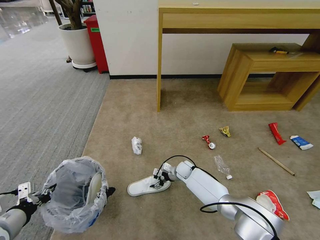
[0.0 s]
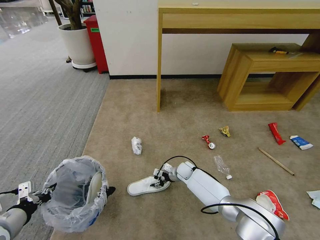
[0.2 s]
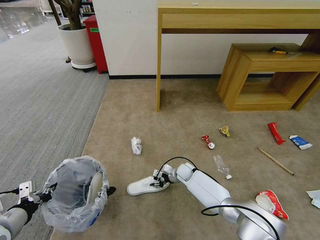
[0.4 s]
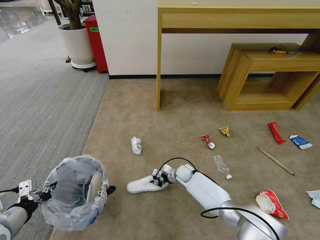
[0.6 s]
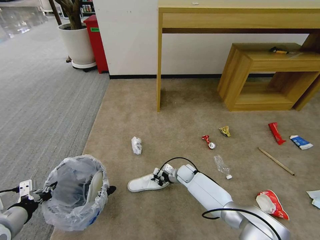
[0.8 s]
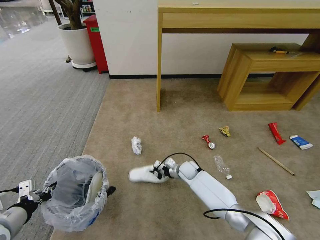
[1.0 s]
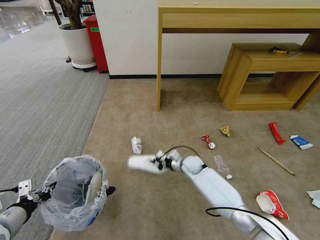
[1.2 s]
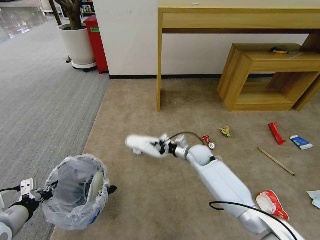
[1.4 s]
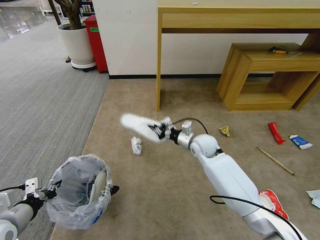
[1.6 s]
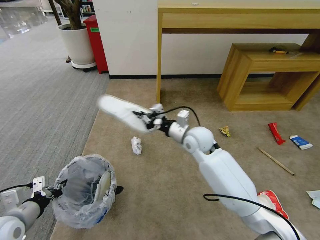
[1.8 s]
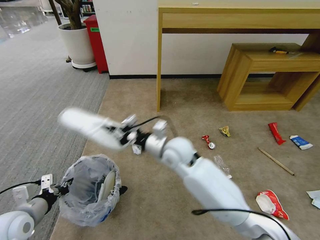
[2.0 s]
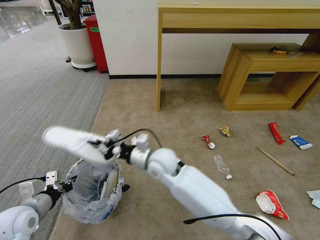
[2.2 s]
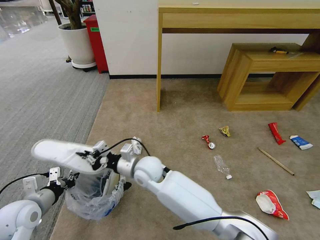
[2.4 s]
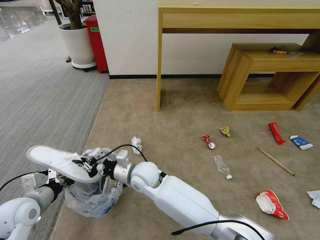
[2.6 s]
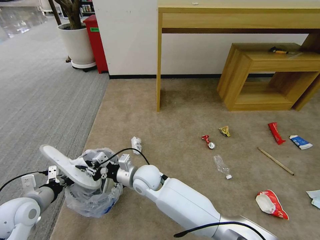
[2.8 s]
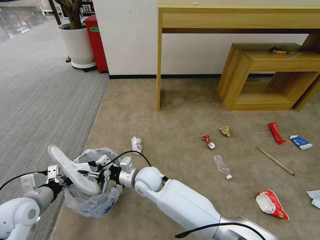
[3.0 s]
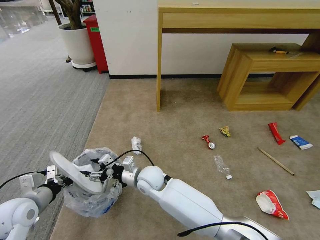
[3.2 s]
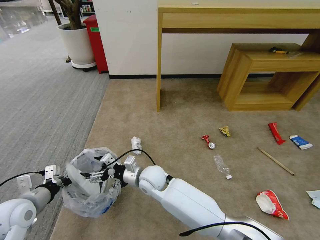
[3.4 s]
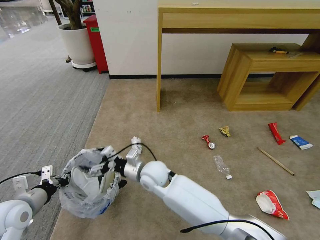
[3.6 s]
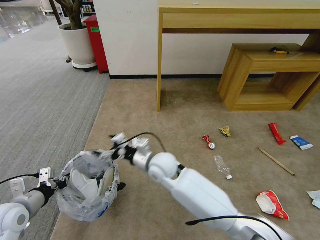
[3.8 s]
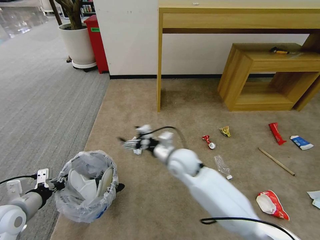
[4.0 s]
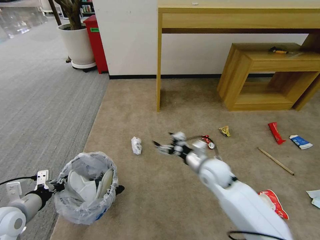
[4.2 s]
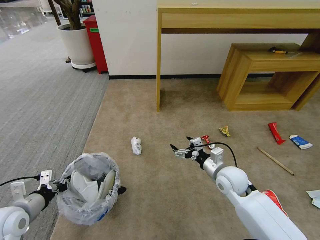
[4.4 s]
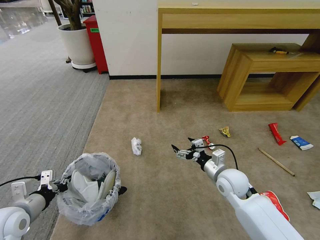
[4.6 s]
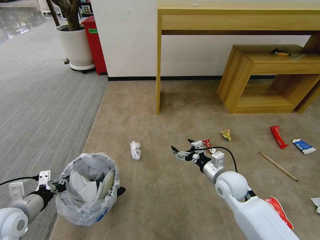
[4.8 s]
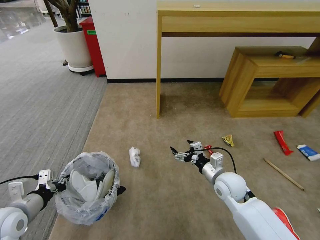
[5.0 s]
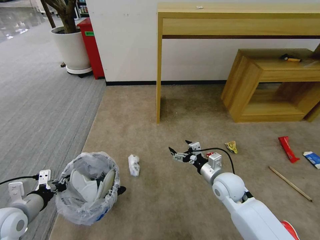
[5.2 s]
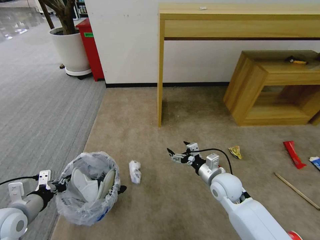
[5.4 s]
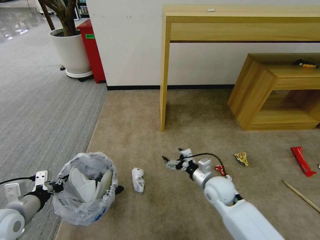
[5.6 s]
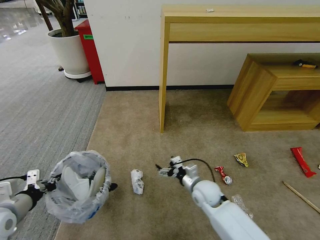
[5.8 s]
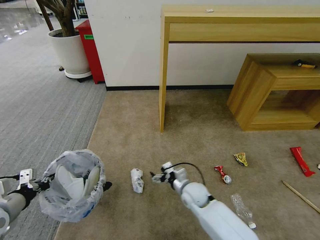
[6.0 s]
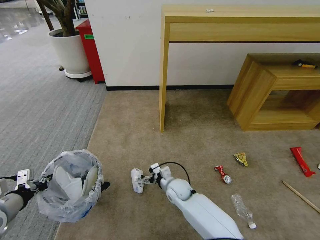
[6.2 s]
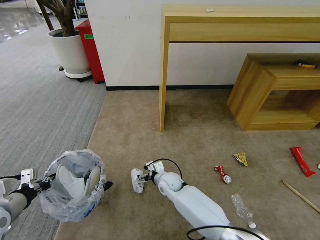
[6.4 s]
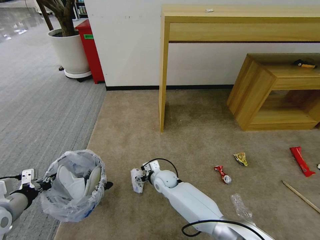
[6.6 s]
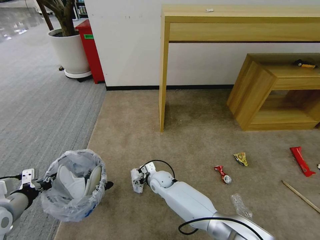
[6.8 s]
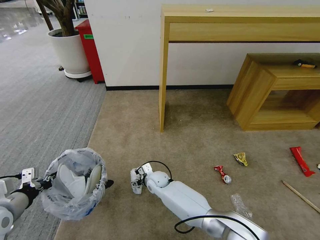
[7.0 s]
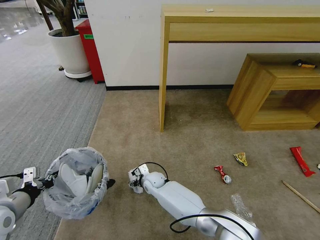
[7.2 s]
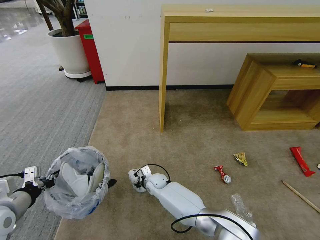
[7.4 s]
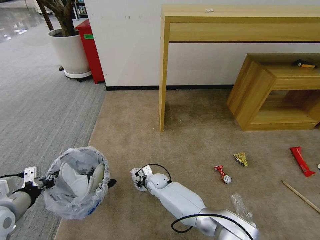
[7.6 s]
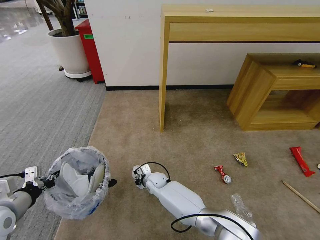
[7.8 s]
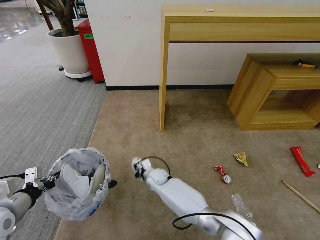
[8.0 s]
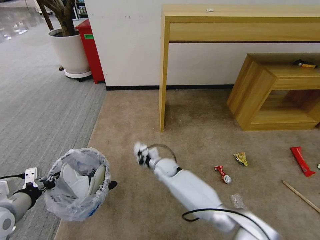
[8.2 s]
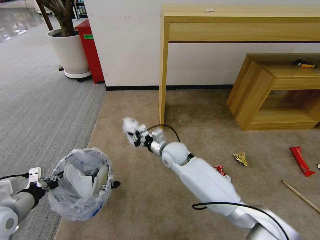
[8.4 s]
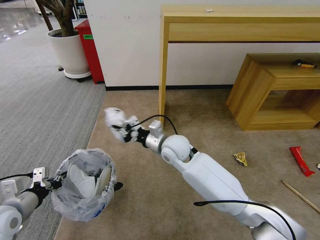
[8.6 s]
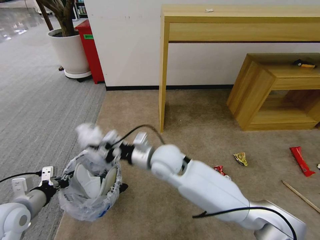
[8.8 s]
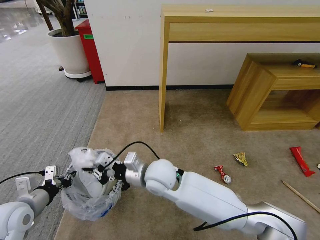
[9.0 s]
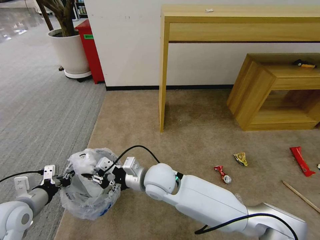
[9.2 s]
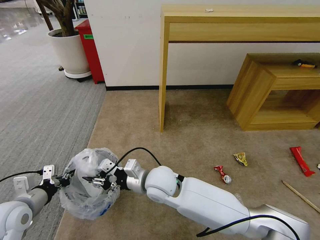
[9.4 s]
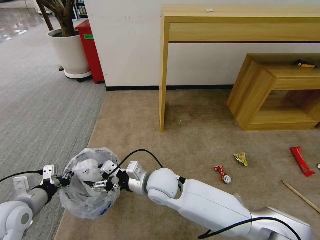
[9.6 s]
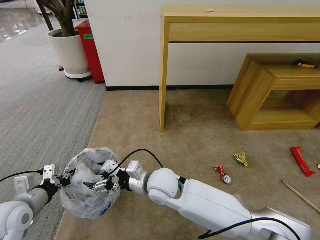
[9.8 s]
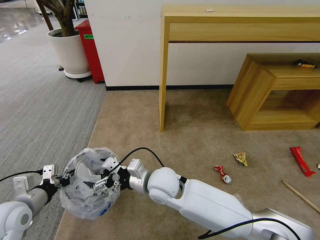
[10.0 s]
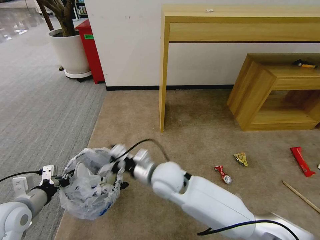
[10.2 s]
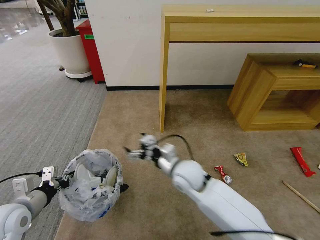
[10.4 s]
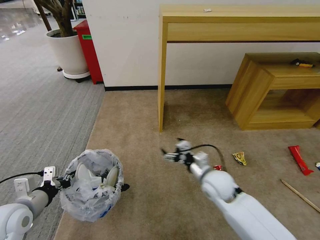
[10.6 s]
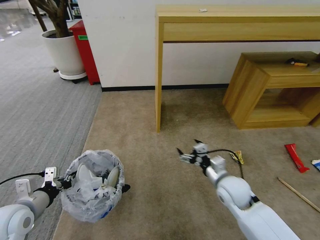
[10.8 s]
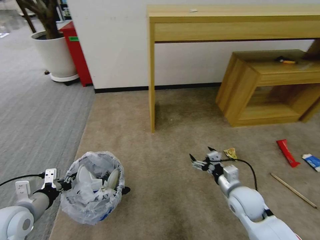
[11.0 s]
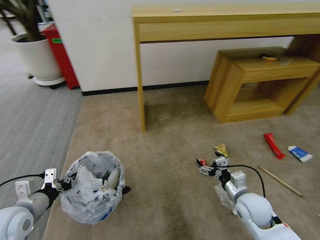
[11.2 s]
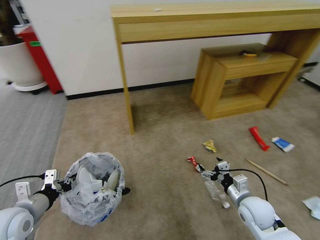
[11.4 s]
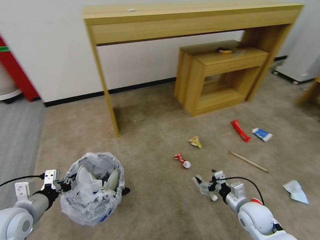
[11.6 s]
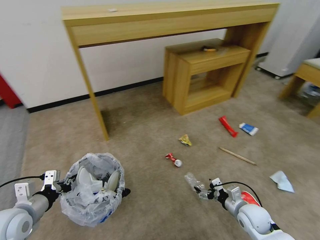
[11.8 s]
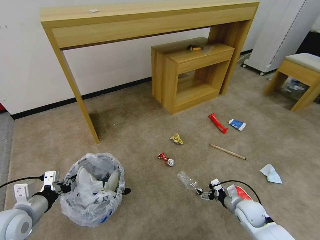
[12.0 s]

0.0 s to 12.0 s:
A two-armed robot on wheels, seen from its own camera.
Task of the whole recording: Pick up the trash bin and place the garbage on the floor into it.
0.0 to 1.6 s: The right gripper heads upward, covering about 20 cm, and closes up.
1.6 to 3.0 s: The left gripper is displaced forward by about 5 cm; the right gripper shifts approximately 25 cm to the left and backward, and opens up.
3.0 to 4.4 s: The right gripper shifts about 30 cm to the right, and opens.
4.4 to 6.0 s: The right gripper is displaced to the left and downward by approximately 15 cm.
6.0 to 7.6 s: The right gripper is displaced to the left, forward and downward by roughly 15 cm, and closes up.
7.6 to 9.0 s: The right gripper is displaced upward by roughly 25 cm.
9.0 to 10.4 s: The right gripper moves to the right, some 5 cm, and opens its fingers.
10.4 to 12.0 s: The right gripper is displaced to the right and downward by roughly 35 cm.

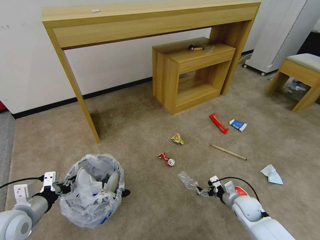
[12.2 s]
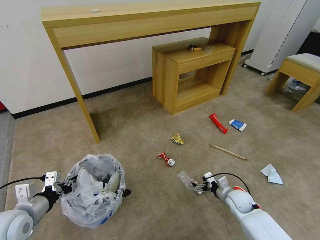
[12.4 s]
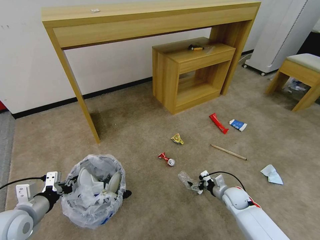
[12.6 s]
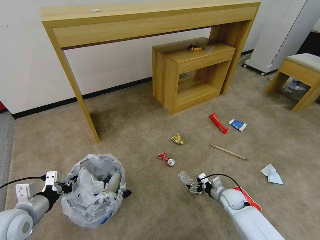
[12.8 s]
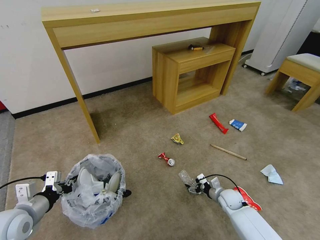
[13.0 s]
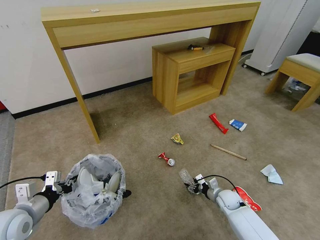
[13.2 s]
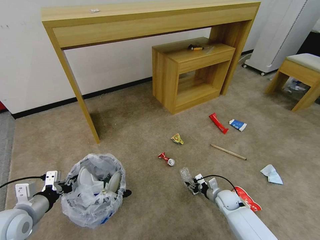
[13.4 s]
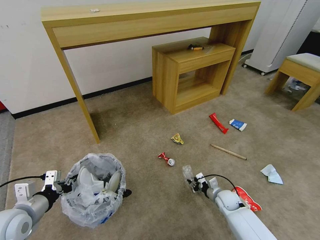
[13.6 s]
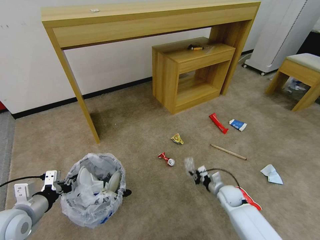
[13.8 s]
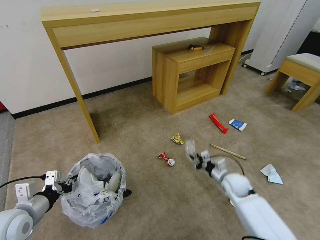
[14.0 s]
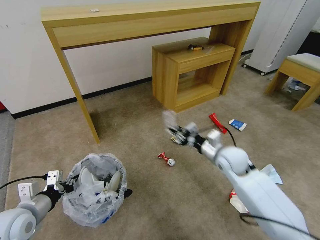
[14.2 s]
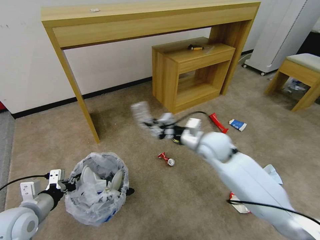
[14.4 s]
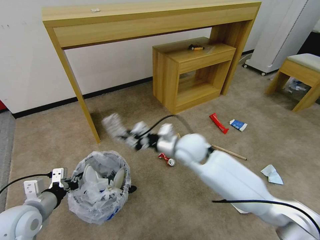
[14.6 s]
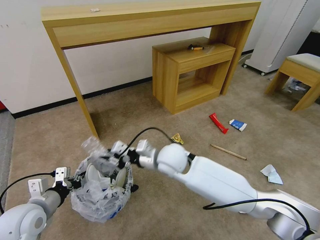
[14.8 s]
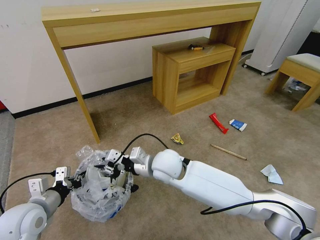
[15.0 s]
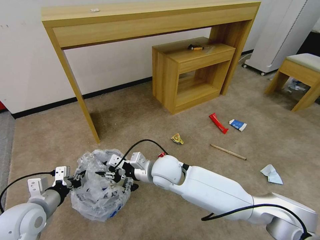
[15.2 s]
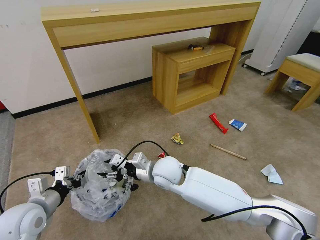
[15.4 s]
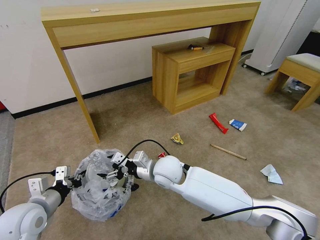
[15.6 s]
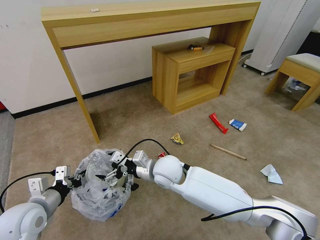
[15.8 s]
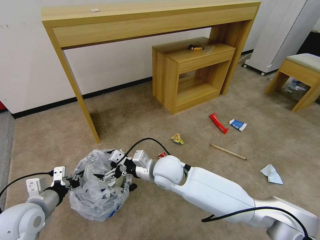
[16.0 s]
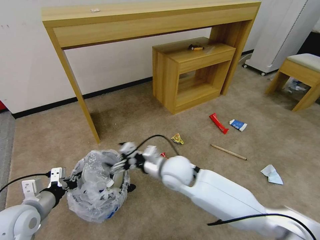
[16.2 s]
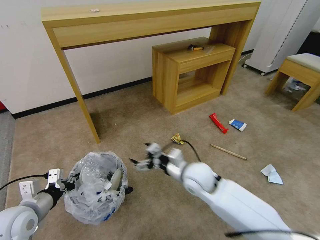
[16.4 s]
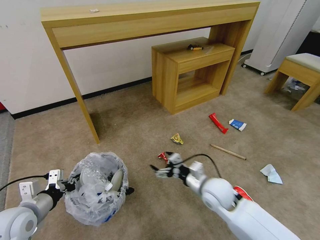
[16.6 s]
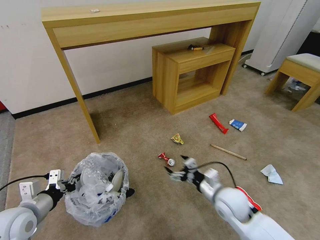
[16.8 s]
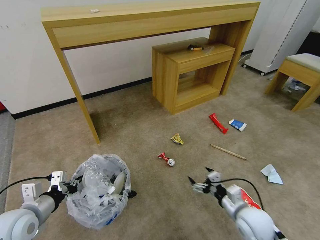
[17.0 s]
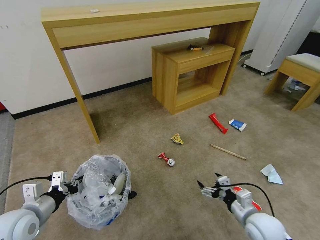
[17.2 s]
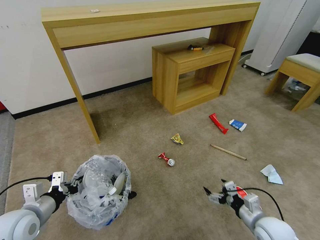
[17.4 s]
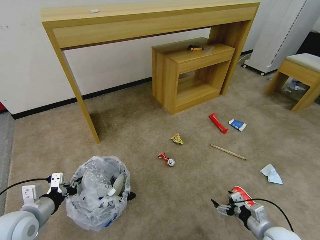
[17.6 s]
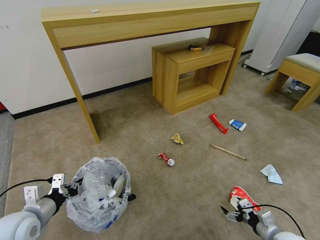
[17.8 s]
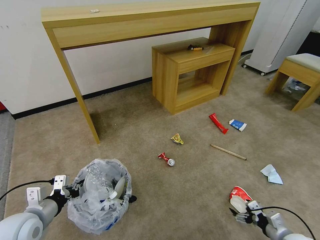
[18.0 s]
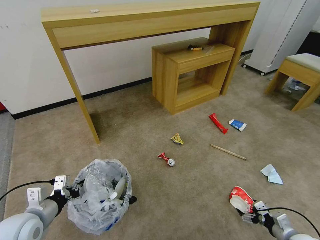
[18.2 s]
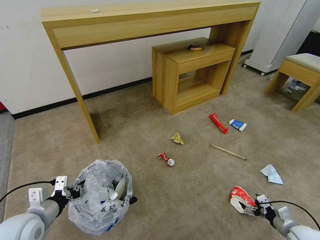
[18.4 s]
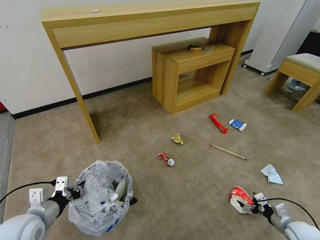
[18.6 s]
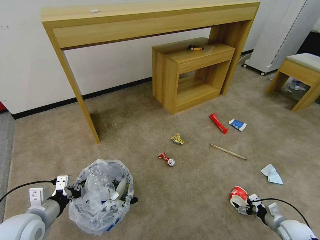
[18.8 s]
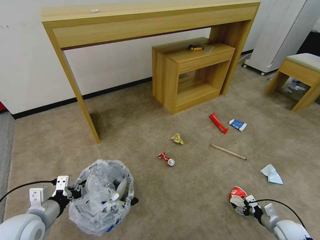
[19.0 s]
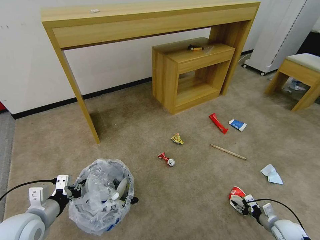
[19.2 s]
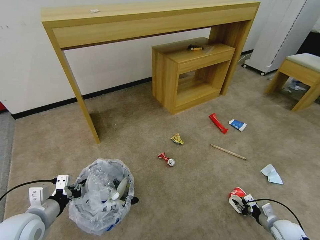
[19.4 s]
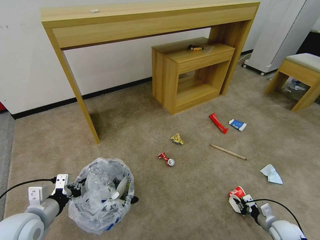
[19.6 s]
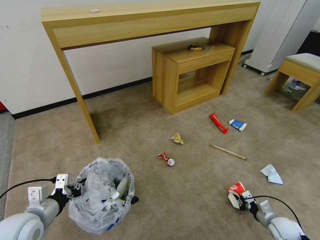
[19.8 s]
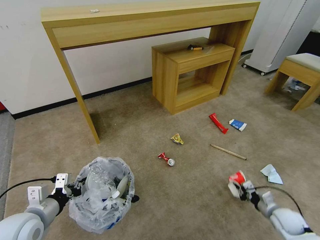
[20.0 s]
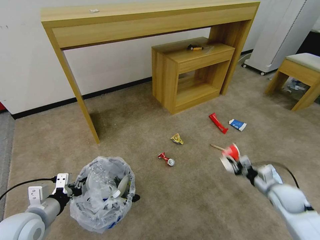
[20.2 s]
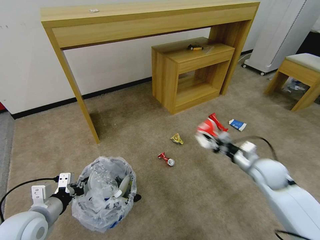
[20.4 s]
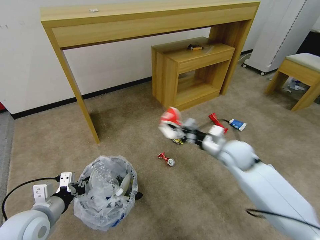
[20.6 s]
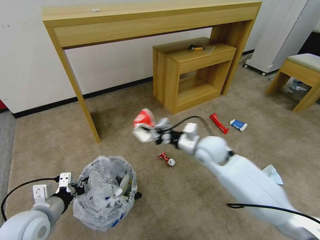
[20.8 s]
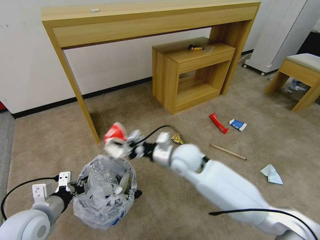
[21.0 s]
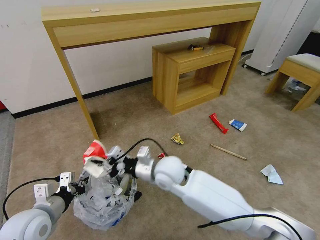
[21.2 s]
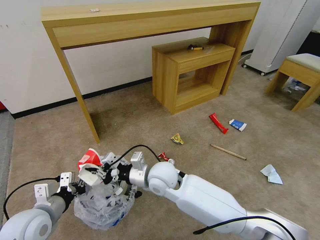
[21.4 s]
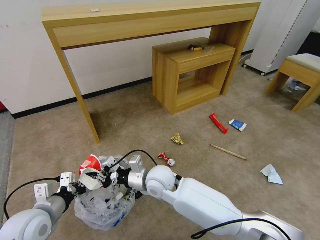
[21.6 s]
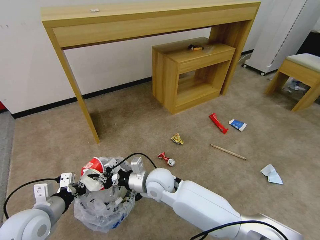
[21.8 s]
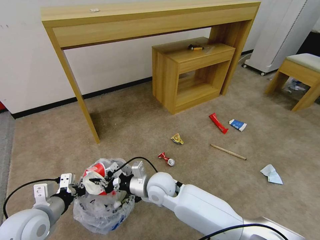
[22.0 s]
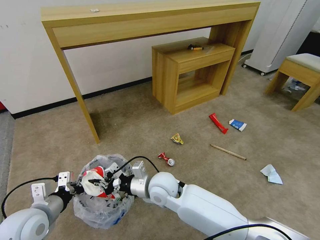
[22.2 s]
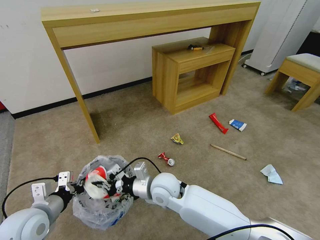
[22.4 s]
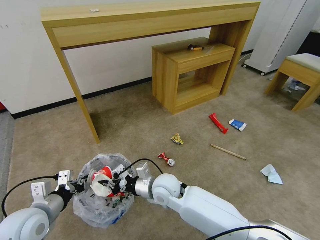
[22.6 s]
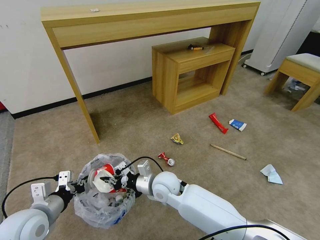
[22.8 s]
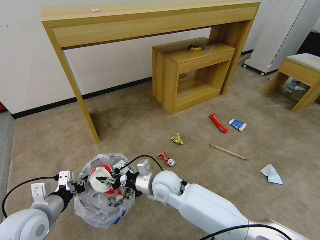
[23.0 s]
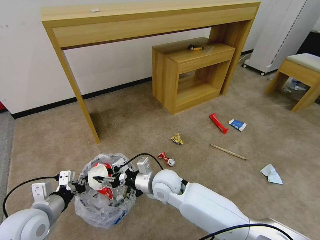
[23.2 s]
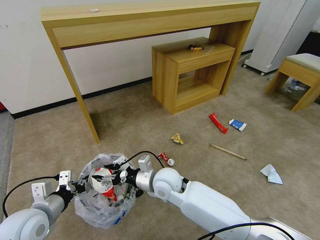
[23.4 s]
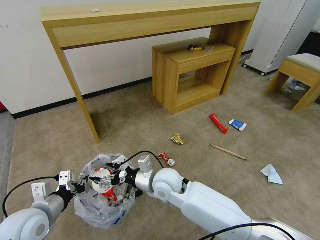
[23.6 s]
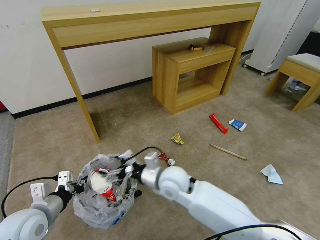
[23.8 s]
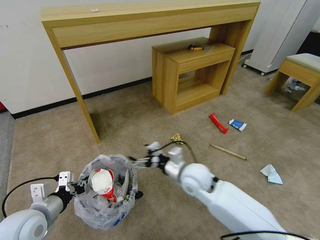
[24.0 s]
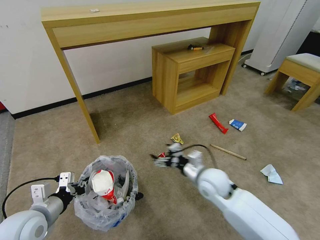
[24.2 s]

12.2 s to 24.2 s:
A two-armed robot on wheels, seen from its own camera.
Task of the whole recording: Pick up the trash bin and place the garbage on the floor into it.
12.2 to 13.8 s: The right gripper heads forward, covering about 5 cm, and closes up.
13.8 to 15.2 s: The right gripper is displaced to the left and upward by roughly 35 cm.
15.2 to 16.6 s: The right gripper shifts some 15 cm to the right, and opens up.
16.6 to 18.2 s: The right gripper moves to the right, downward and backward, roughly 35 cm.
18.2 to 19.8 s: The right gripper goes about 5 cm forward, and closes its fingers.
19.8 to 21.2 s: The right gripper travels to the left and upward by roughly 50 cm.
21.2 to 22.6 s: The right gripper is displaced downward by some 10 cm.
22.6 to 24.2 s: The right gripper travels to the right by some 15 cm, and opens up.
